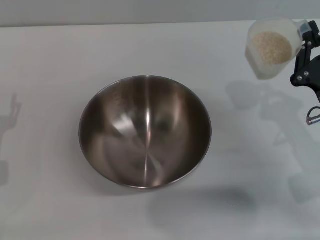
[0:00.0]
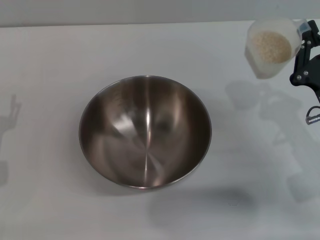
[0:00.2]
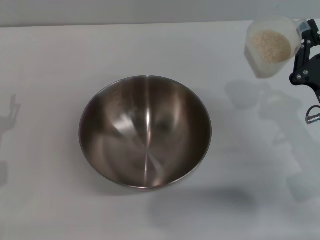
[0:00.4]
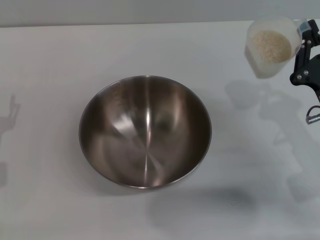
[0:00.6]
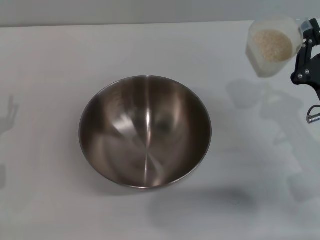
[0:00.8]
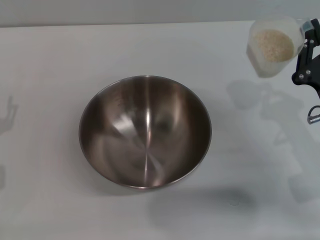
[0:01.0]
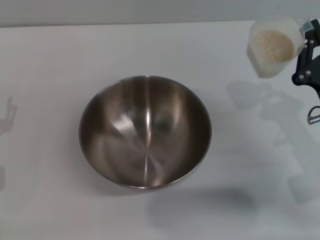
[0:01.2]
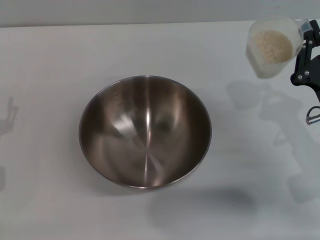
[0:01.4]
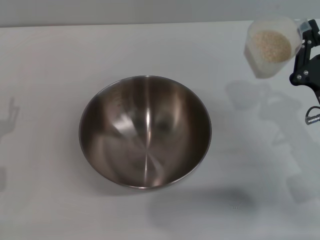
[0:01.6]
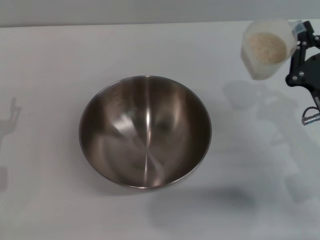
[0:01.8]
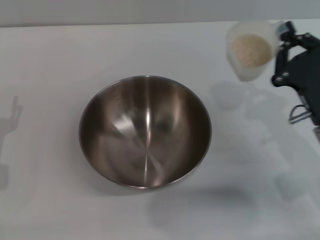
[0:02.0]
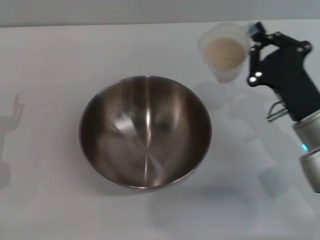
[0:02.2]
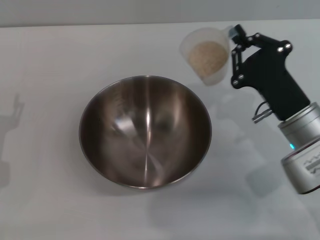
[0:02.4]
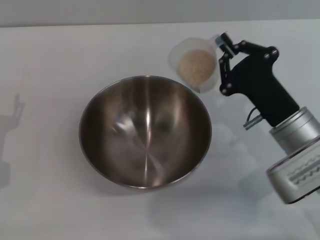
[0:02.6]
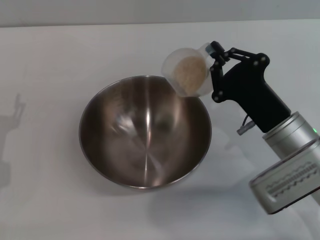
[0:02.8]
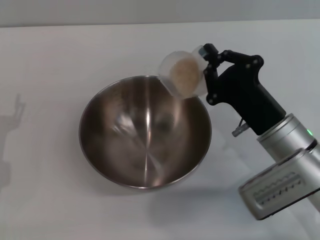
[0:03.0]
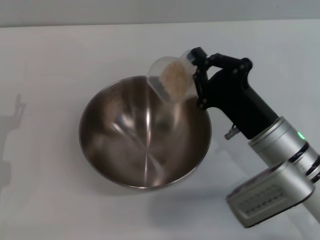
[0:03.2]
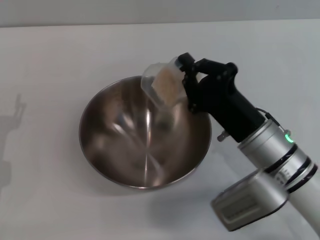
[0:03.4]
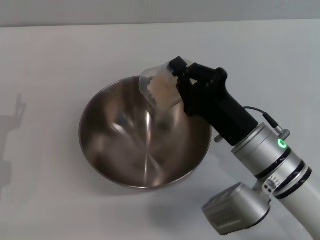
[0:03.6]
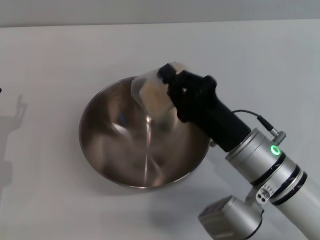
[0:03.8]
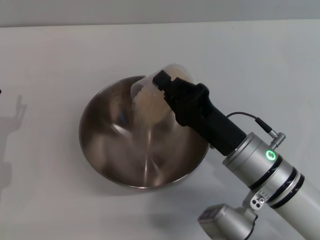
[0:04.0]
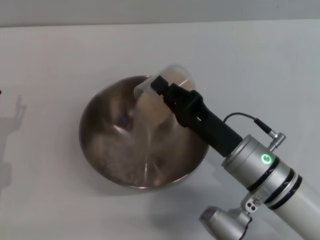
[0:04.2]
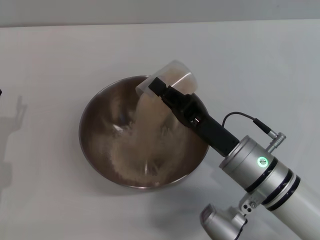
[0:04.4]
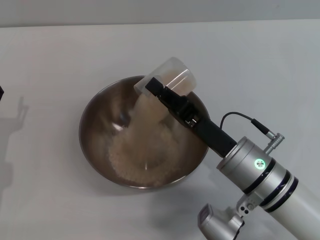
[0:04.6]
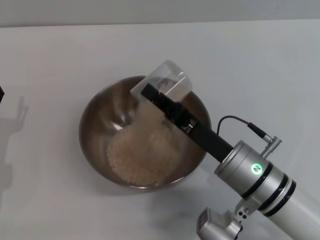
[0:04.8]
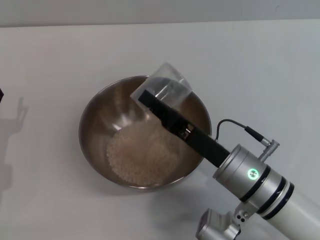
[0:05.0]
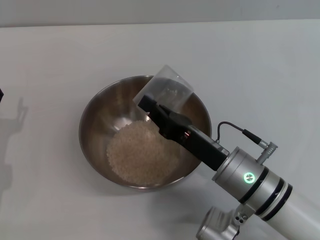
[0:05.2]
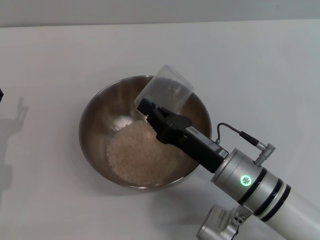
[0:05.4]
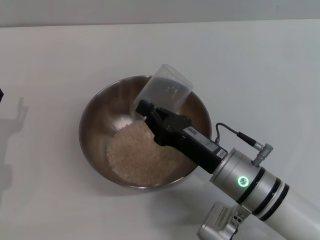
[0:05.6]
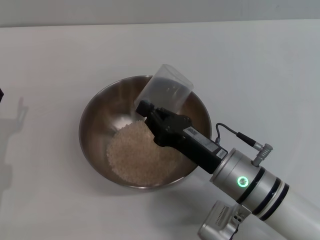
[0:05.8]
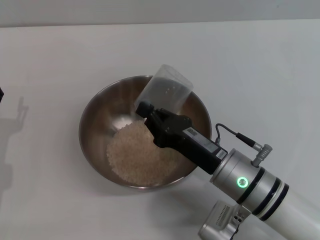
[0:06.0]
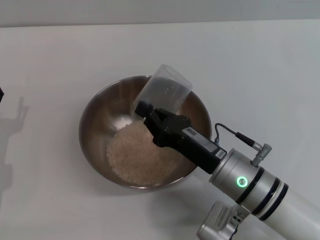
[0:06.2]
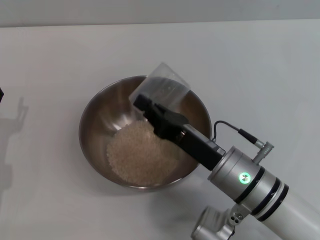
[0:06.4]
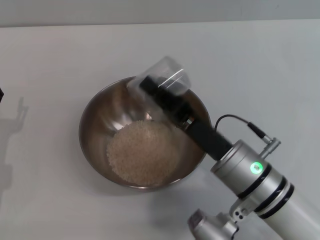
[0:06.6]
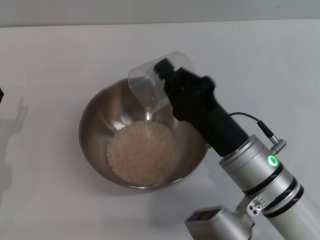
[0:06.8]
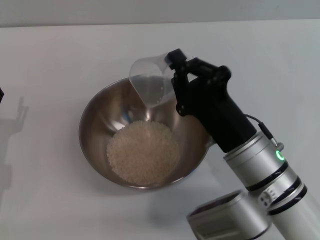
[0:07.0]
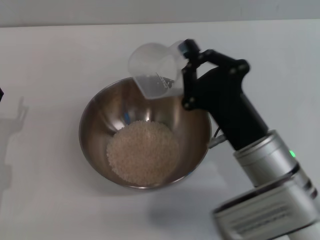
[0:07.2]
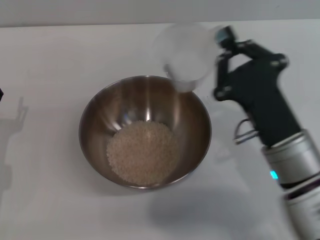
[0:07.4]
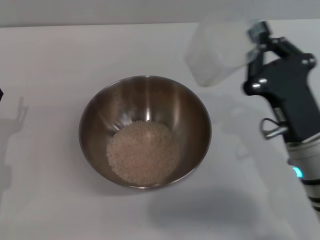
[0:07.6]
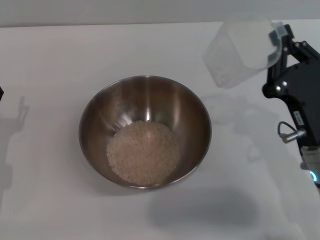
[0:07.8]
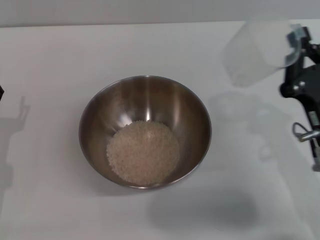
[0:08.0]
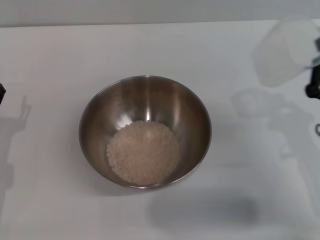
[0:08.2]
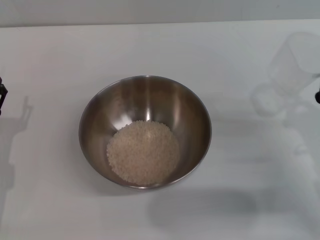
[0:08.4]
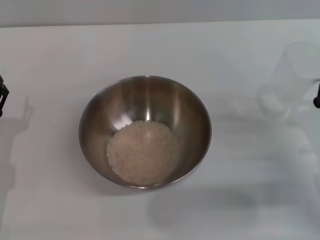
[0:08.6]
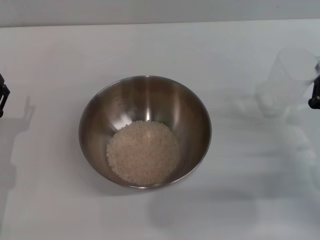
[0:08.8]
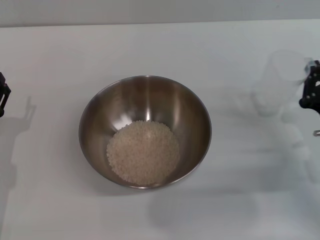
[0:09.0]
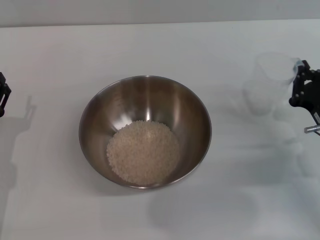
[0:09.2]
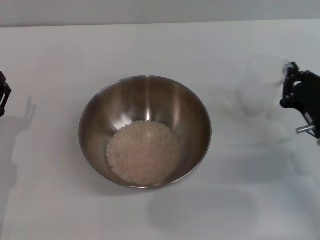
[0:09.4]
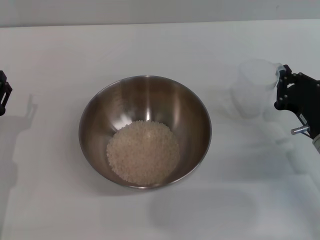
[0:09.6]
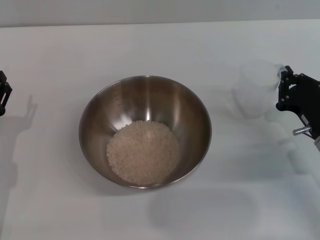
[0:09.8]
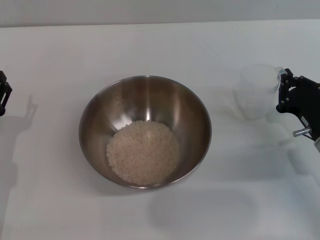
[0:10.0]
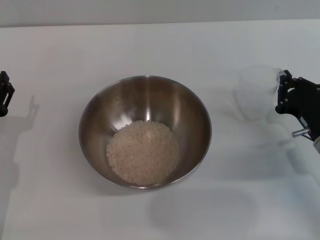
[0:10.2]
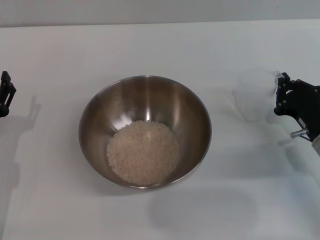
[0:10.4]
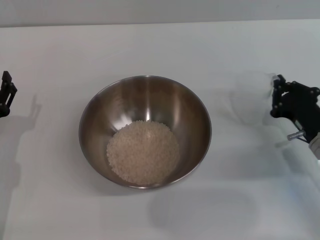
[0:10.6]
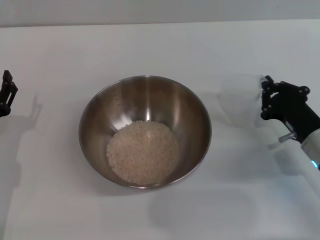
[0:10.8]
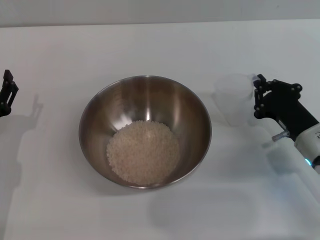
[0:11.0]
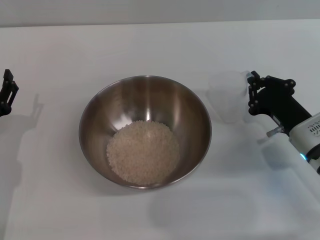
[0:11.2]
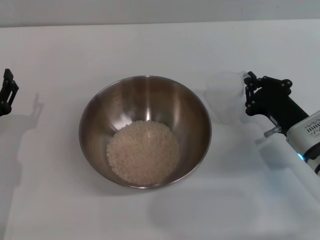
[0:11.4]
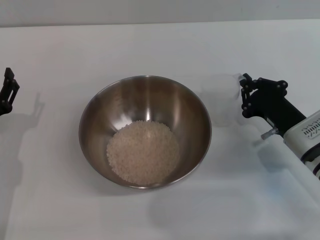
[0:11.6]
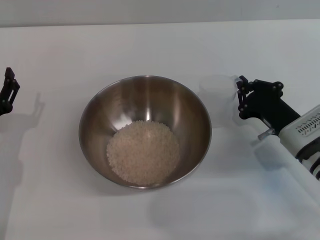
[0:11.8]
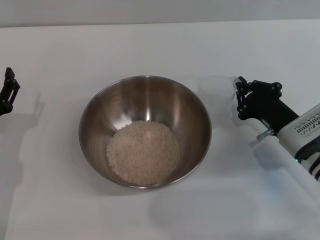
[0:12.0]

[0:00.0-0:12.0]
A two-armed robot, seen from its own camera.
Task of the whole recording: Place the bowl in the middle of the table with one hand and pour the rice from the grain cup into it with the other hand.
Step, 0:00.0 to 0:06.6: Pour the rice from the cup into the bowl with the right gripper.
0:00.0 to 0:01.6: Both grippers stay put.
0:01.6 to 0:03.0: The right gripper travels to the left by approximately 10 cm.
0:03.0 to 0:04.4: The right gripper changes place by some 5 cm.
0:06.0 to 0:07.6: The right gripper travels to the right by some 5 cm.
0:07.6 to 0:09.0: The right gripper moves to the right and downward, approximately 10 cm.
0:09.0 to 0:10.4: The grippers make only small movements.
0:10.4 to 0:12.0: There are only small adjustments of the grippers.

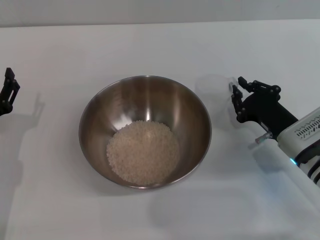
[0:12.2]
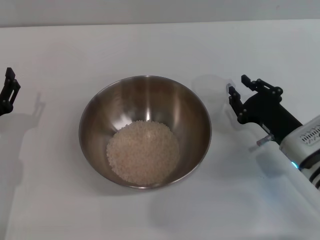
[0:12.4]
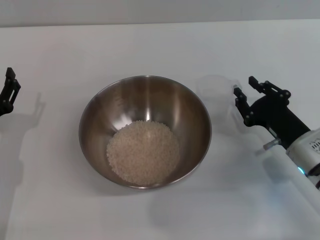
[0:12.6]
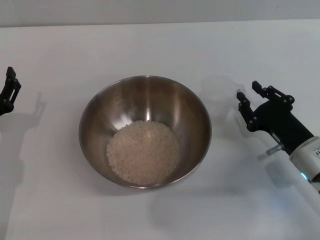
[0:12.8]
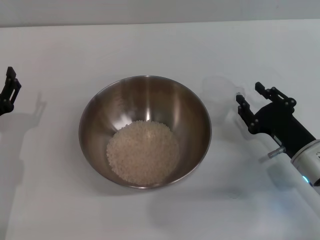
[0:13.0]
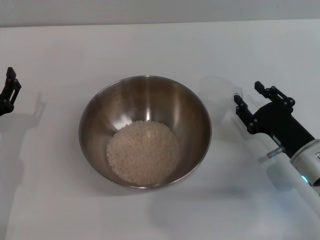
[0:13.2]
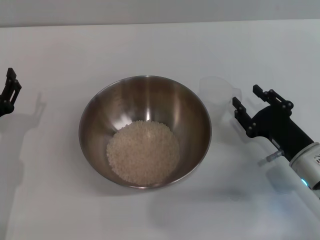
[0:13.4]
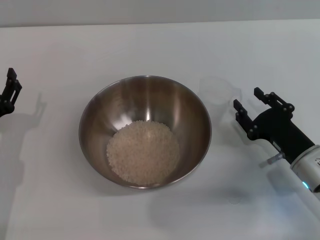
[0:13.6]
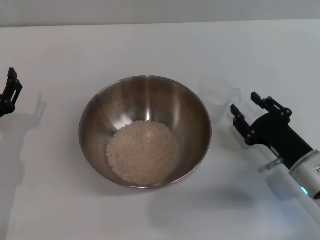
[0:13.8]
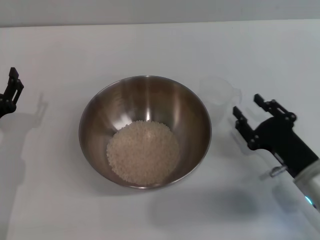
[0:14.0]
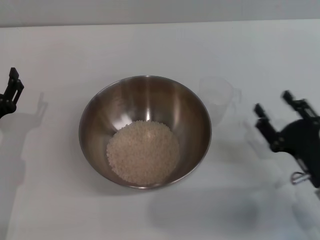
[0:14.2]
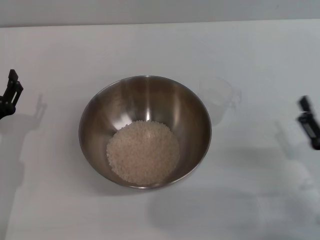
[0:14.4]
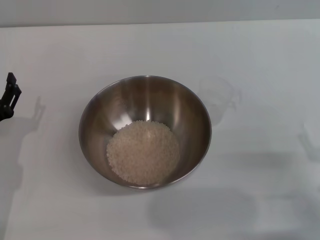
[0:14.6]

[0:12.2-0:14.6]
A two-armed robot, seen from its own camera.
Task of the whole recording: Place the bowl in the middle of the table with one hand and pour the rice from the grain cup into it with the other hand.
0:12.2 to 0:13.4: The right gripper opens.
0:13.4 to 0:14.6: The right gripper moves backward and to the right, some 10 cm.

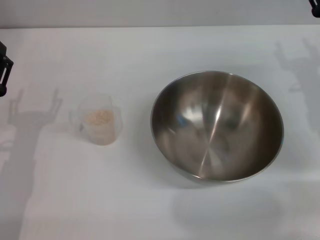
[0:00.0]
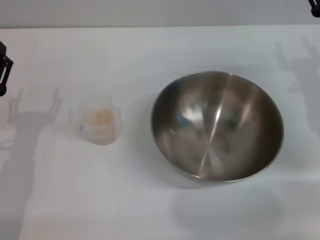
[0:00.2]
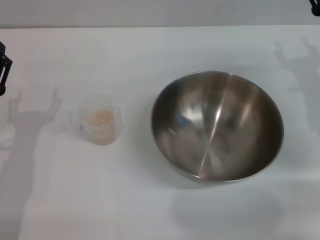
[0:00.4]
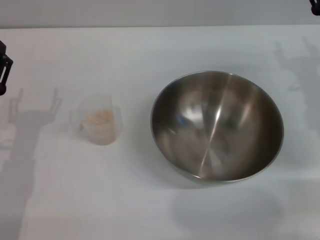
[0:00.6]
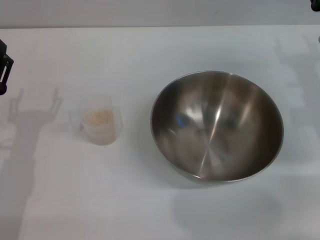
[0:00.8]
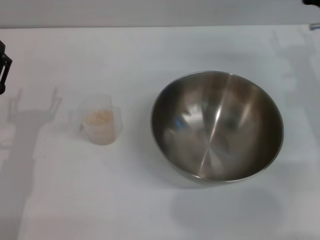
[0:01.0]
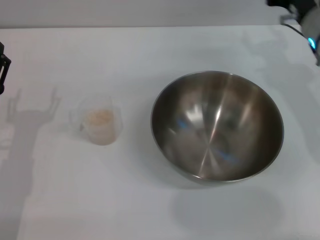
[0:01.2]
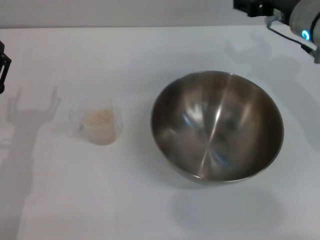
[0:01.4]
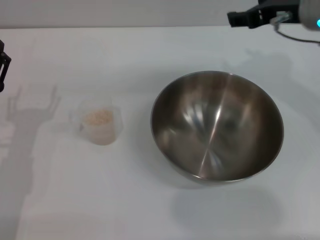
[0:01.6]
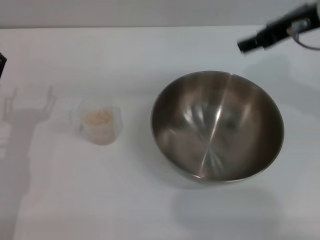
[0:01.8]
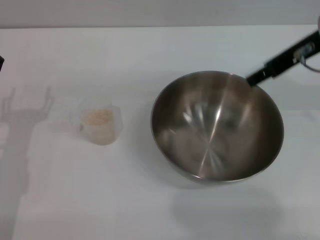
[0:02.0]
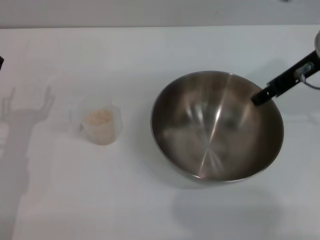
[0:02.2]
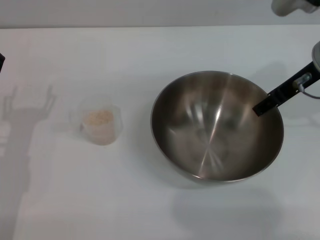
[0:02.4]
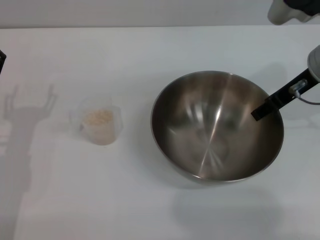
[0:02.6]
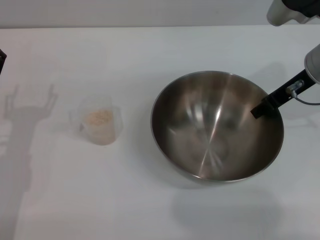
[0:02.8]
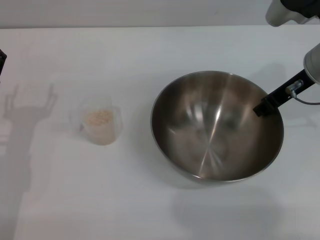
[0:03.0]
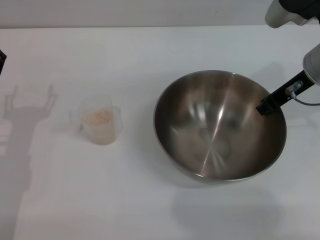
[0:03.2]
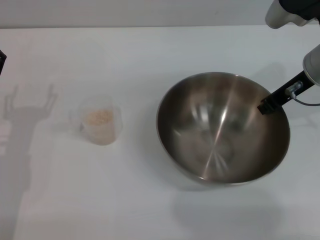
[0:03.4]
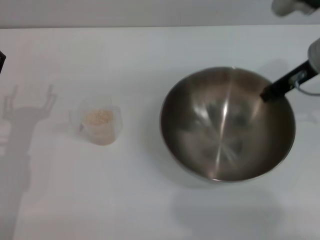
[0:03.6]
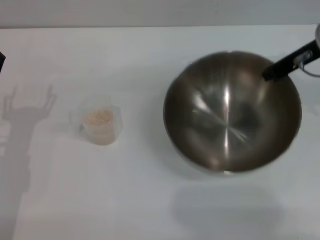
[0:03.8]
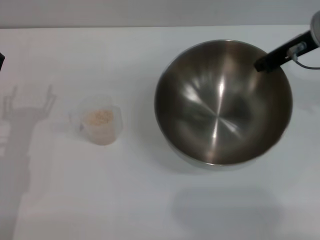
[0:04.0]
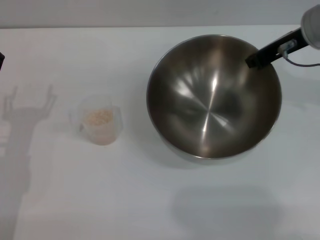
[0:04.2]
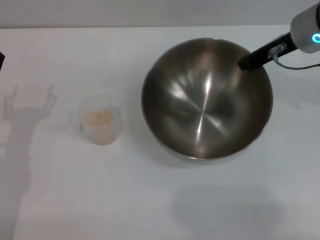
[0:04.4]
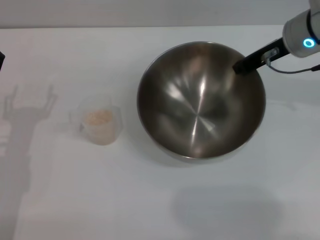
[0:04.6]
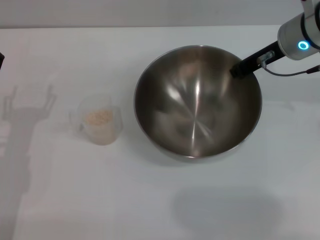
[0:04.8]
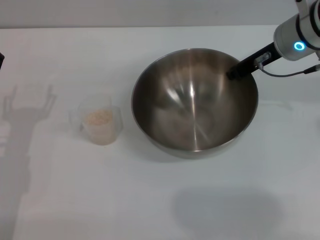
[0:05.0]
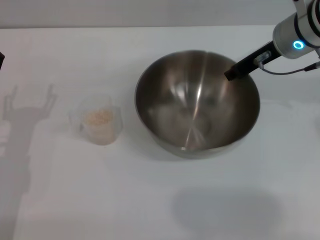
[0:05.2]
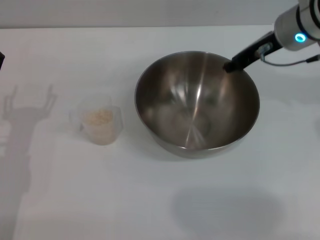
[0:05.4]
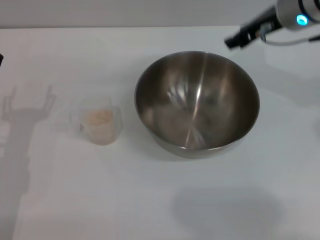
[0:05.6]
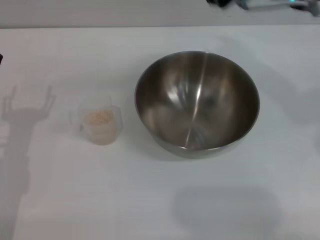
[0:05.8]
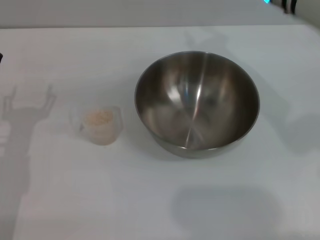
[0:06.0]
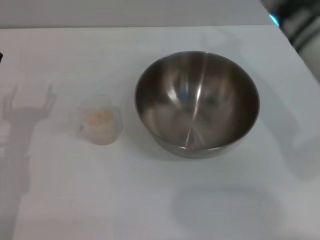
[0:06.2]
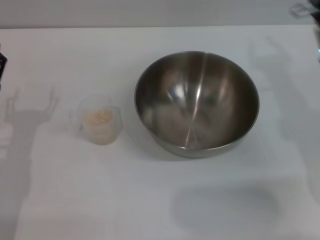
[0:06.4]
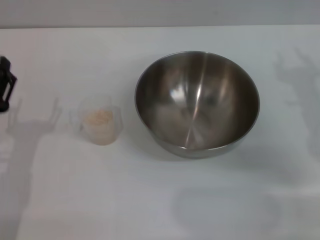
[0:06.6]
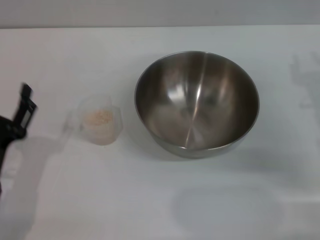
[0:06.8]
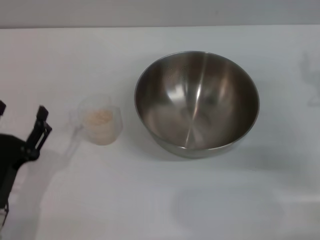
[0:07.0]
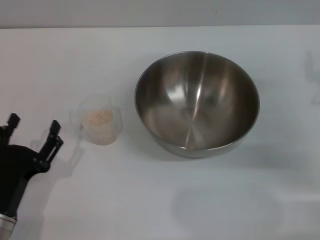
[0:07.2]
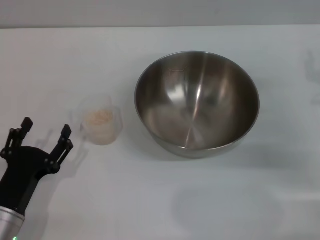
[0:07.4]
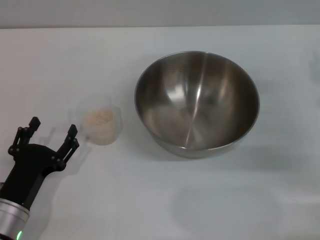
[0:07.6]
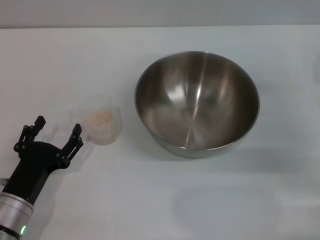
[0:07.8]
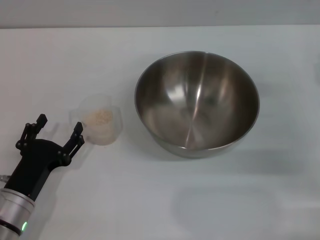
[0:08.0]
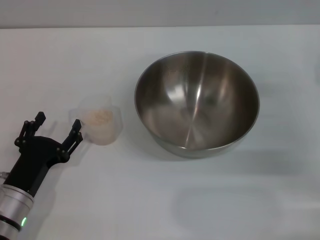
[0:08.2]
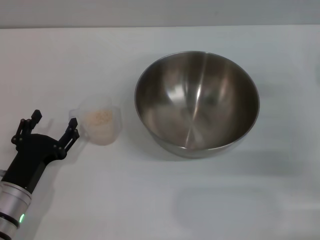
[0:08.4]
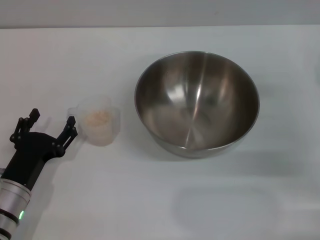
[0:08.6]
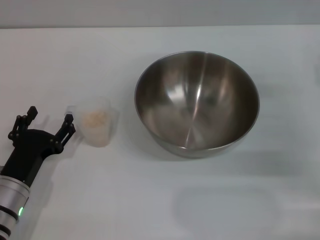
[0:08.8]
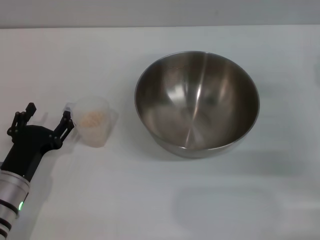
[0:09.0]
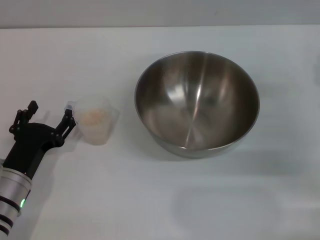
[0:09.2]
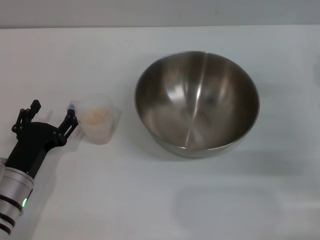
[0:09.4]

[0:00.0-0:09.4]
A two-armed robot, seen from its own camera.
Task of the whole recording: Place the bowl in the middle of the table with one hand and pour the rice from the grain cup into it with the other hand.
Step, 0:00.0 to 0:03.8: Pick up the bowl with the right gripper.
Step, 0:04.0 to 0:05.4: Place the bowl in the center of view with the right gripper.
0:00.0 to 0:01.6: The right gripper shifts some 15 cm upward and to the left.
0:01.6 to 0:03.2: The right gripper travels downward by about 5 cm, and closes its fingers.
0:04.8 to 0:06.2: The right gripper ends up some 5 cm from where it was, and opens up.
0:06.2 to 0:07.8: The right gripper travels to the right, downward and backward by some 20 cm, while the left gripper shifts roughly 10 cm downward and backward.
0:07.8 to 0:09.4: The grippers make only small movements.
